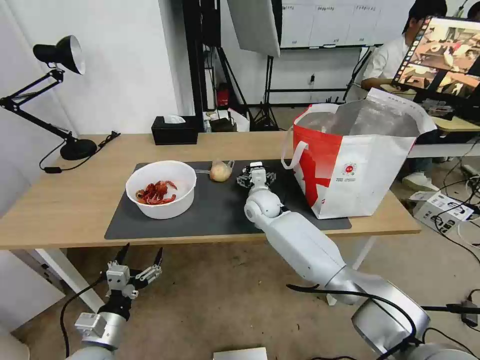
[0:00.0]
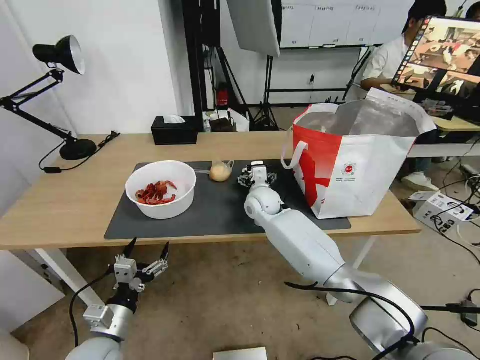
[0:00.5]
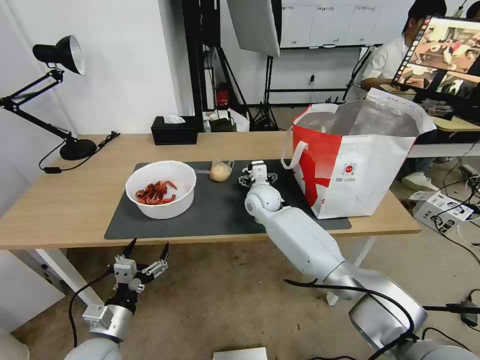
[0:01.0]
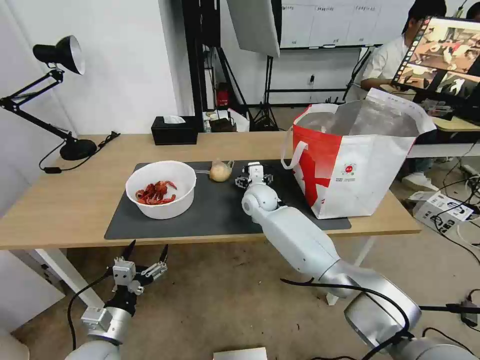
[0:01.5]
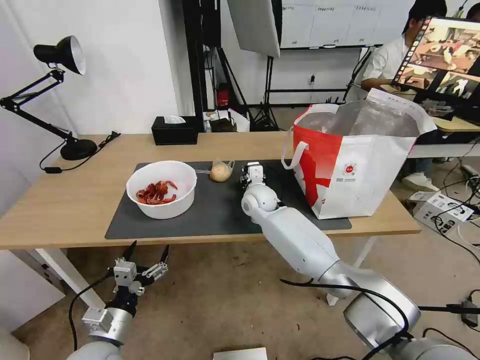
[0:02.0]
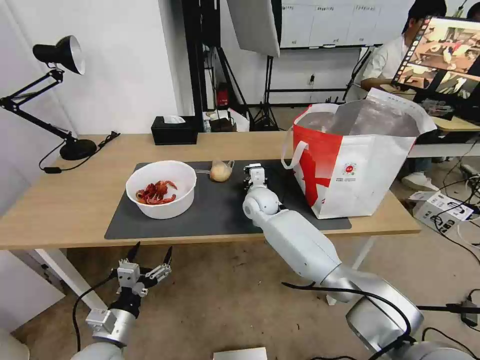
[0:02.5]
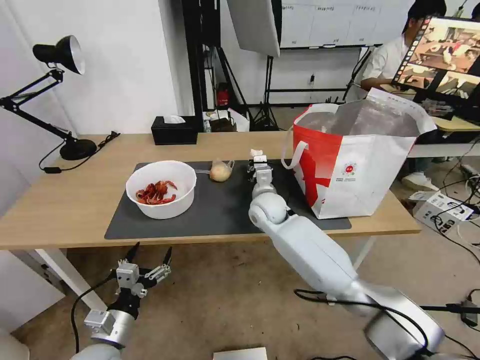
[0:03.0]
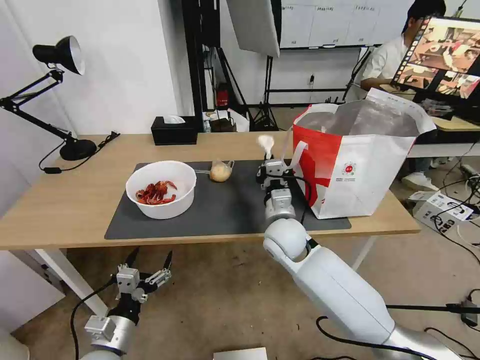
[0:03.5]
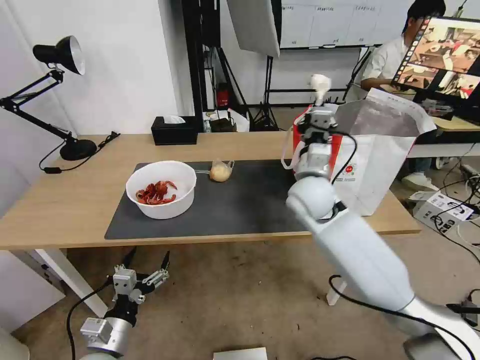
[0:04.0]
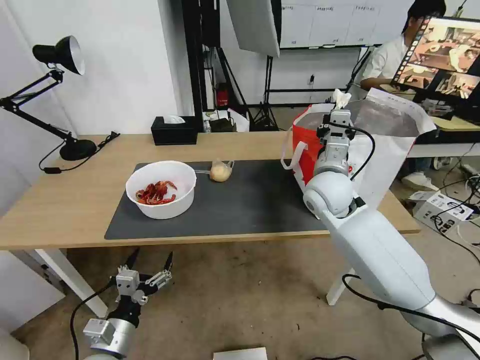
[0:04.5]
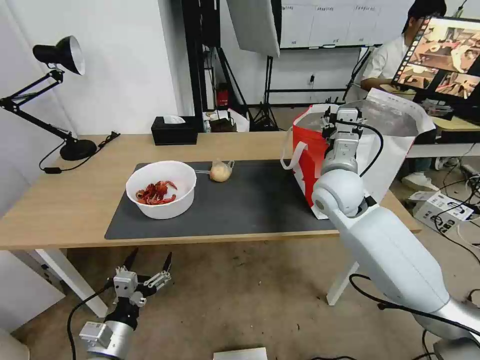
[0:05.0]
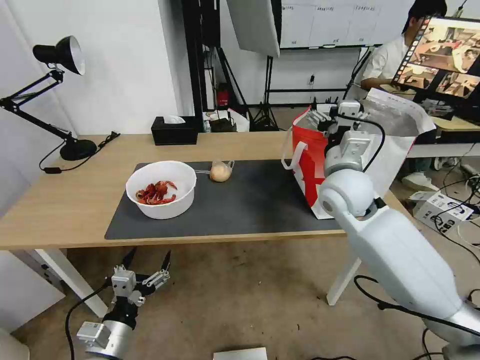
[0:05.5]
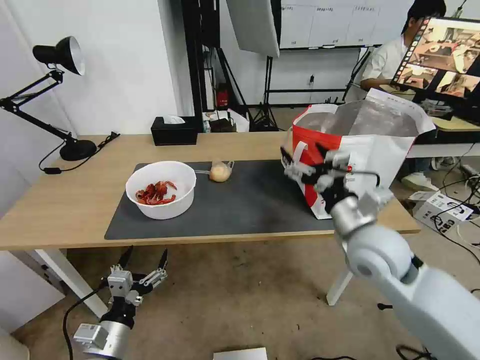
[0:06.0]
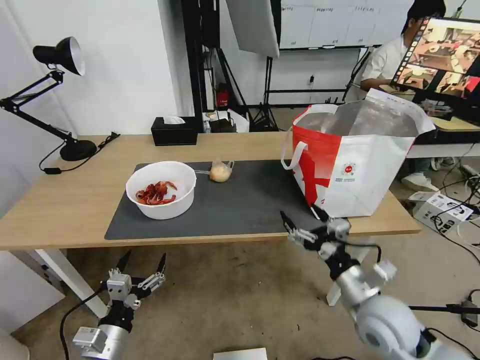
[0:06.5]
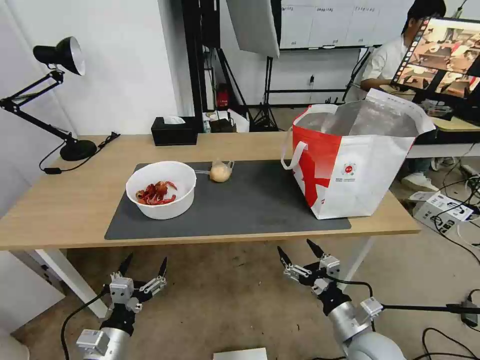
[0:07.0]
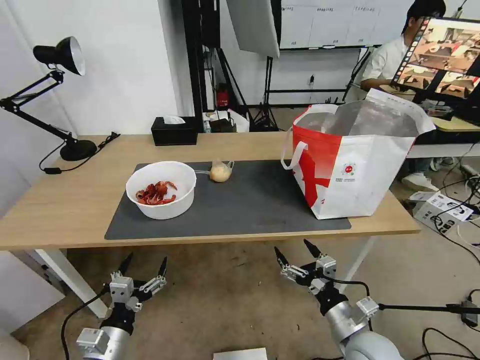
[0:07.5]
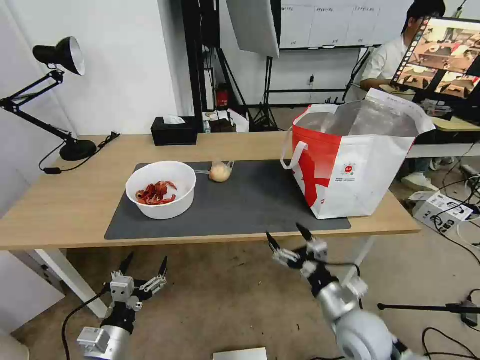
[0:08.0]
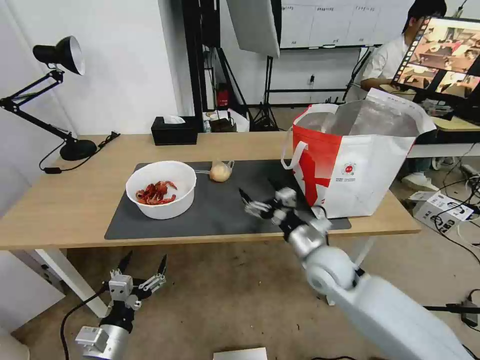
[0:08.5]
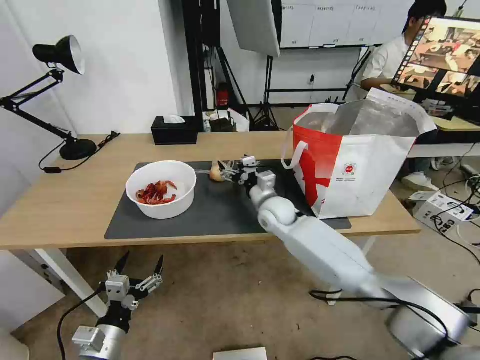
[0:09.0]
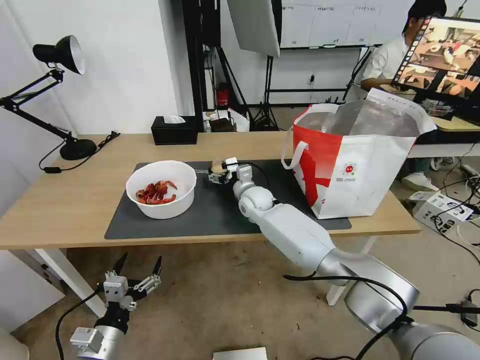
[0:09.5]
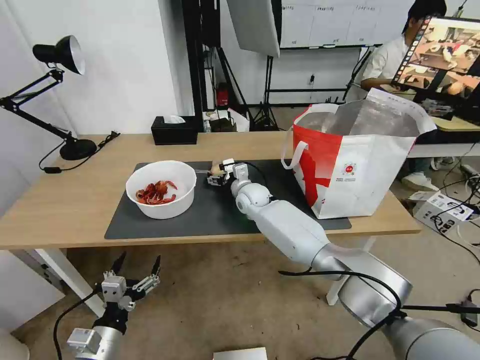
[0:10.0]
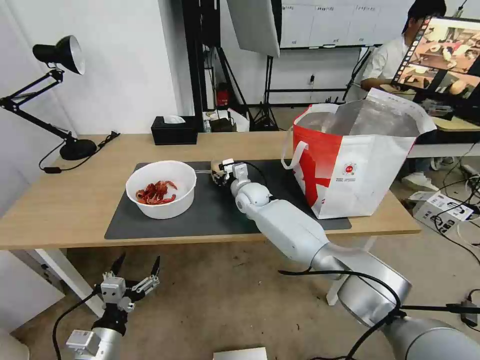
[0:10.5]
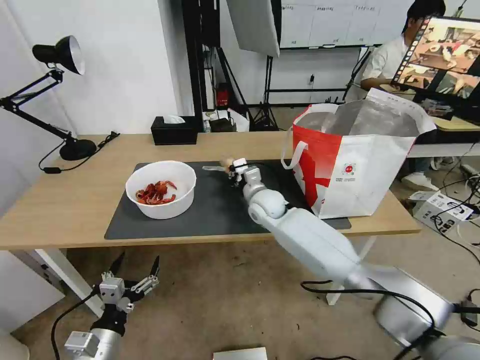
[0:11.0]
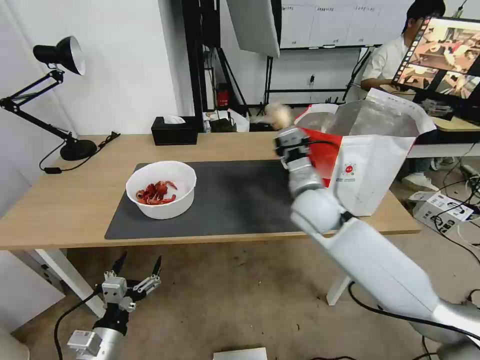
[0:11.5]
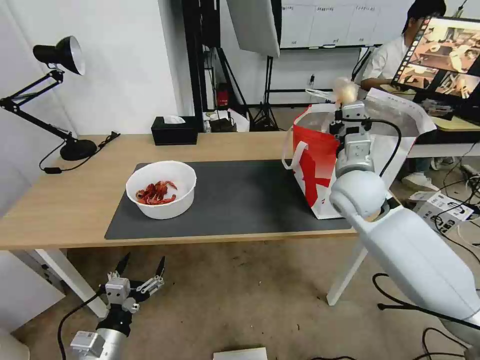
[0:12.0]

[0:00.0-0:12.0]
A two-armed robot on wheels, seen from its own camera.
Task of the whole recording: Pick up the trash from the table and place it into the takeout bag.
0:00.0 to 0:02.0: The right gripper closes up.
0:02.0 to 0:04.0: The right gripper goes approximately 20 cm upward, to the right and backward, and closes.
0:04.0 to 0:06.0: The right gripper travels backward and to the right by roughly 15 cm, and opens up.
0:06.0 to 0:08.0: The right gripper heads downward and backward, covering approximately 20 cm.
0:08.0 to 0:10.0: The right gripper travels forward and to the left by roughly 40 cm.
0:10.0 to 0:12.0: The right gripper travels to the right, upward and backward by about 30 cm, and closes up.

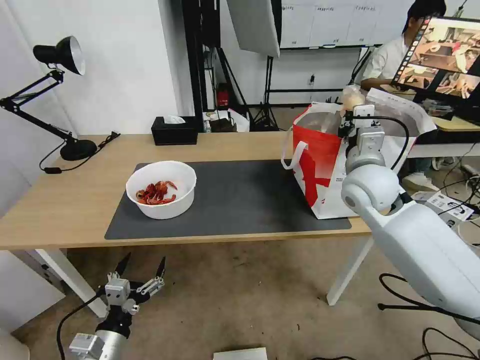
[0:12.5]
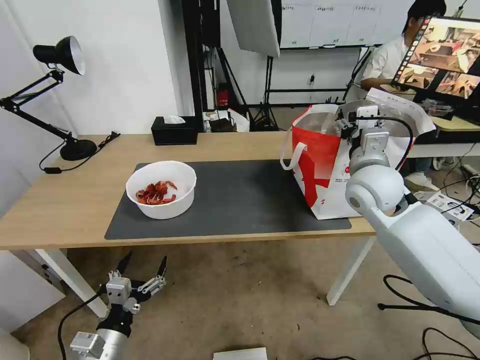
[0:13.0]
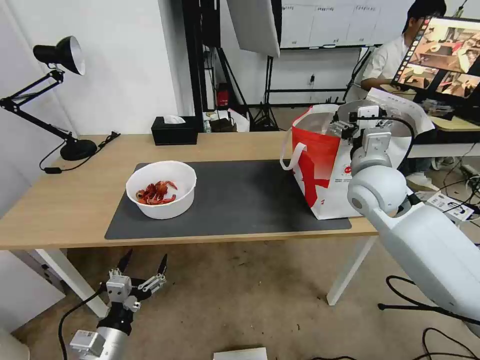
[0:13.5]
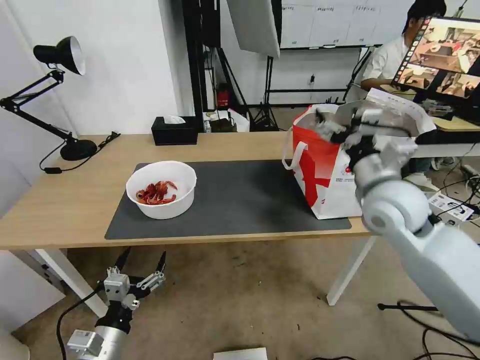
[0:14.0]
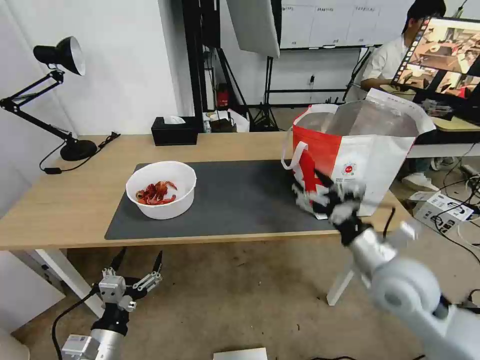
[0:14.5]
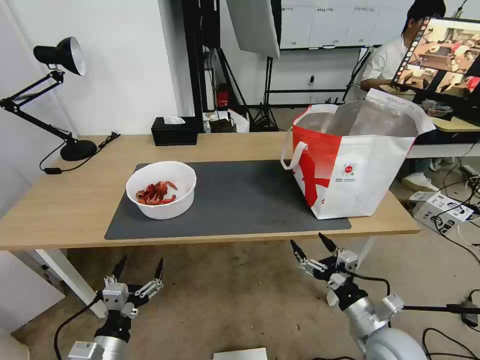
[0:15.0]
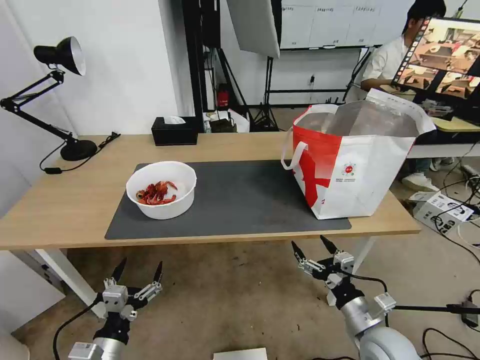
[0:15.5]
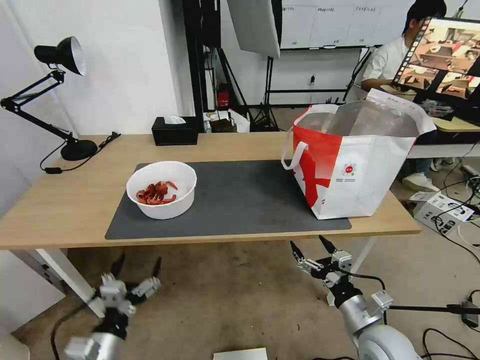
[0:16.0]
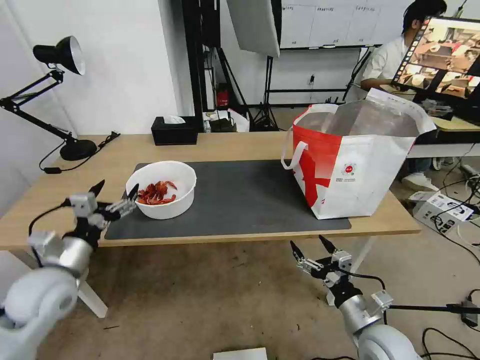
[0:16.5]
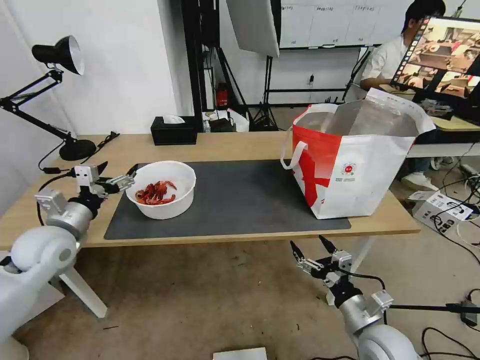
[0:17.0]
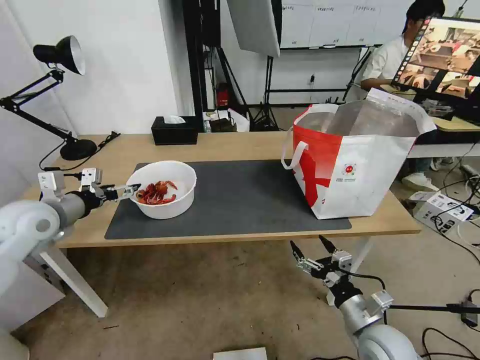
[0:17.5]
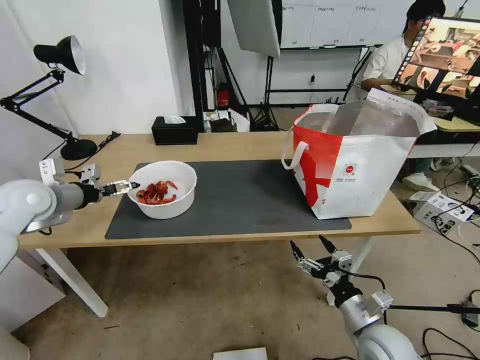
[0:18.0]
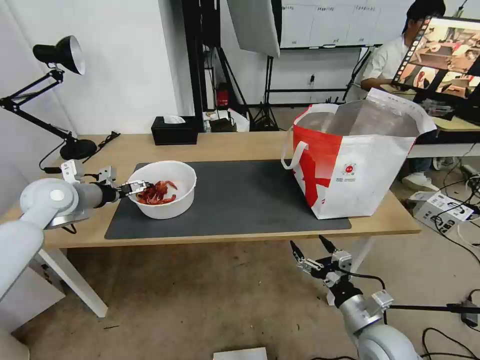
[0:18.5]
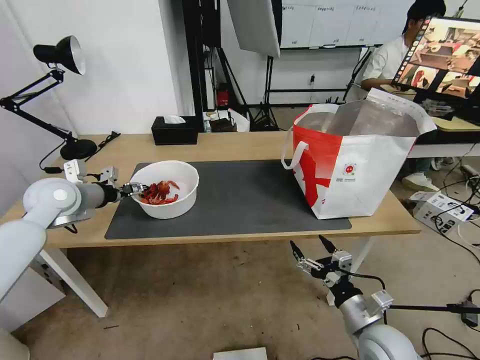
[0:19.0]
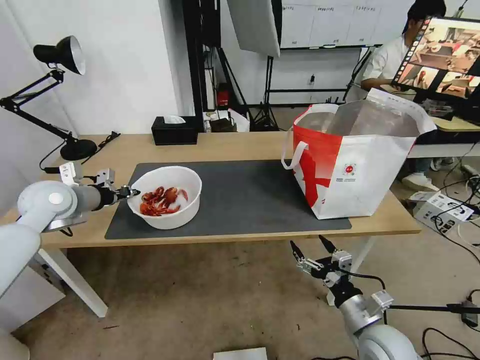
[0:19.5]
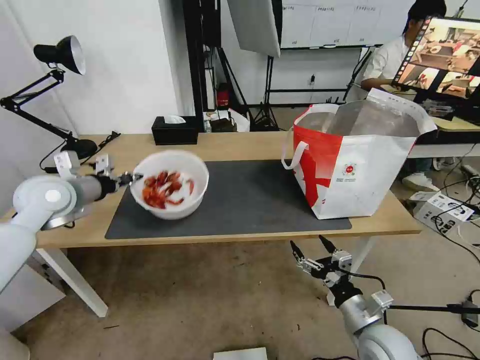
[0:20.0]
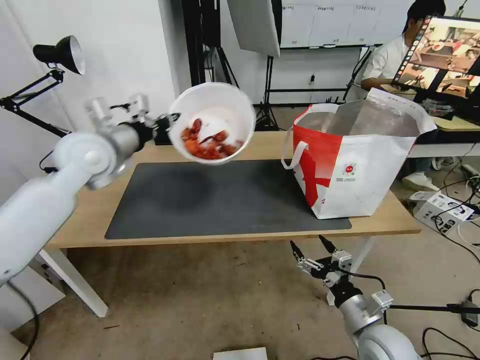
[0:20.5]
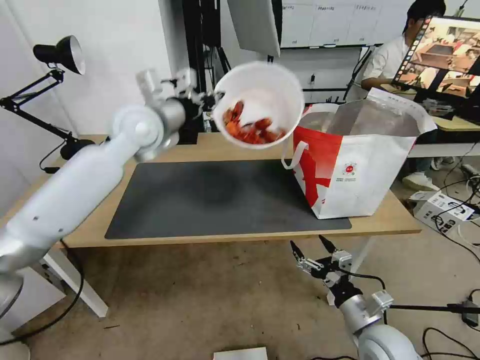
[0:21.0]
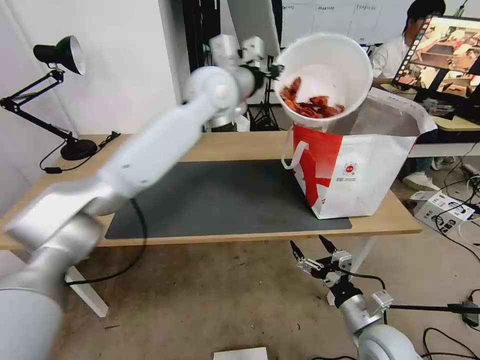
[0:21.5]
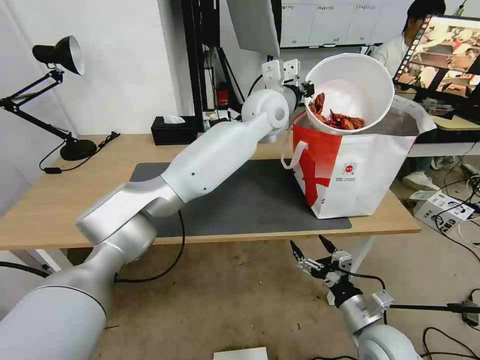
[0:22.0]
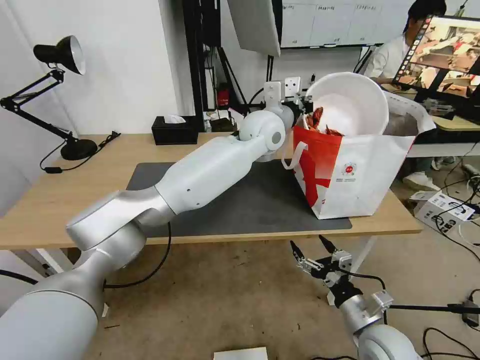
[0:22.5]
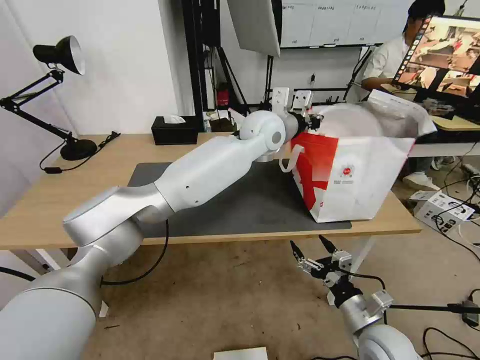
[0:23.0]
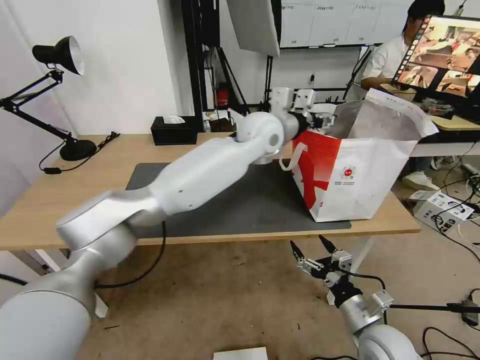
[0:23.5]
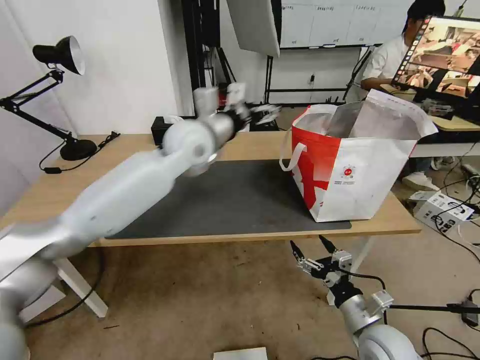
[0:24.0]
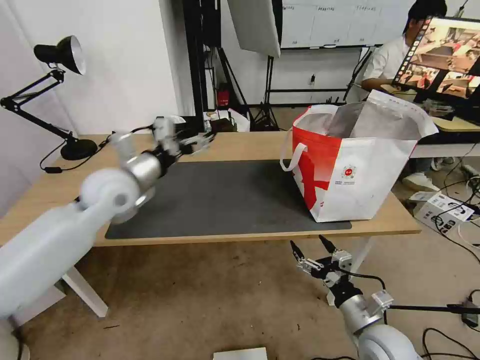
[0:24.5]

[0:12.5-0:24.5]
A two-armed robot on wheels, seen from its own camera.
Task of the whole recording: Pick up the trash from the table and place it into the takeout bag.
0:12.5 to 0:14.5: The right gripper shifts some 20 cm backward and downward, and opens its fingers.
0:14.5 to 0:16.5: The right gripper moves downward and backward, about 15 cm, while the left gripper moves forward, upward and to the left, about 20 cm.
0:16.5 to 0:18.5: The left gripper goes approximately 20 cm forward and upward.
0:18.5 to 0:20.5: The left gripper shifts roughly 15 cm to the right and upward, and closes up.
0:20.5 to 0:22.5: The left gripper goes about 35 cm to the right.
0:22.5 to 0:24.5: The left gripper heads to the left and backward, covering some 30 cm, and opens.

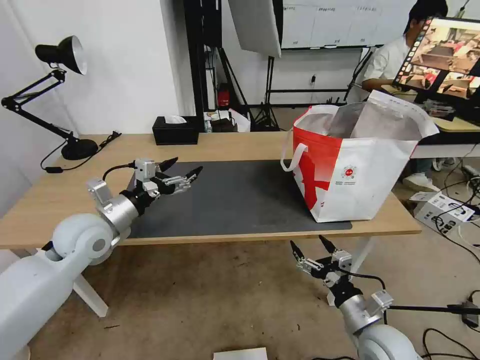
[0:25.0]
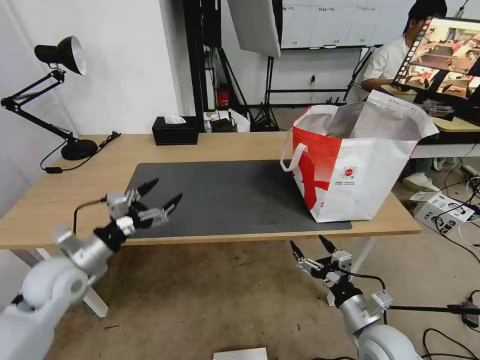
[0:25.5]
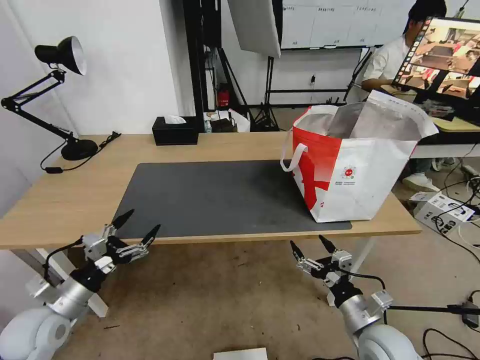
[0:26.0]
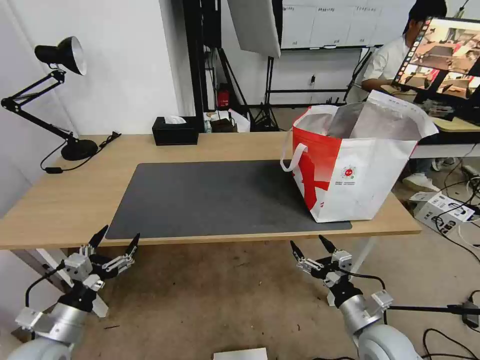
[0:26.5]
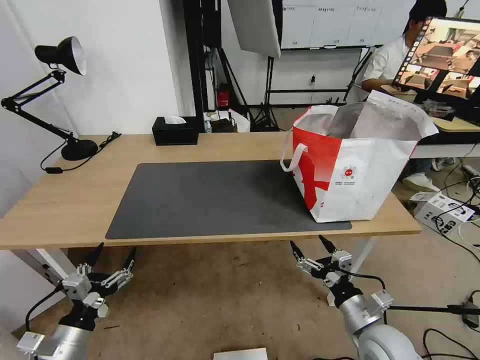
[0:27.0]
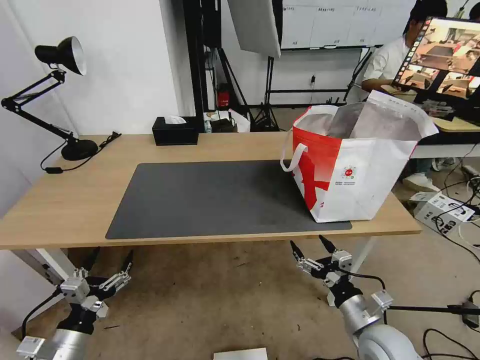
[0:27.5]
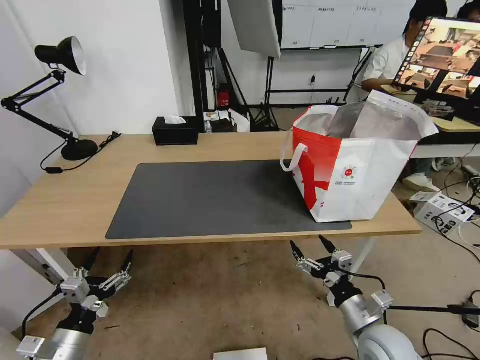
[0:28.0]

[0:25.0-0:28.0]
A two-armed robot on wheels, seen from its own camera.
Task of the whole recording: Pick up the trash from the table and place it into the takeout bag.
0:25.0 to 0:26.5: The left gripper shifts roughly 25 cm backward and downward.
0:26.5 to 0:28.0: The left gripper changes place by some 5 cm.
